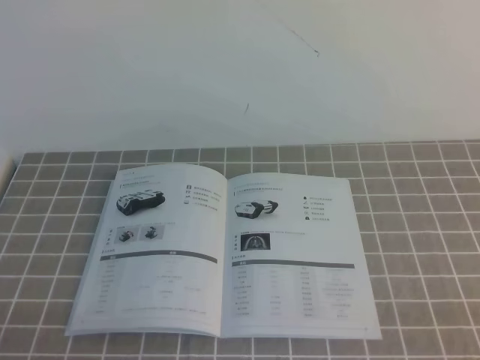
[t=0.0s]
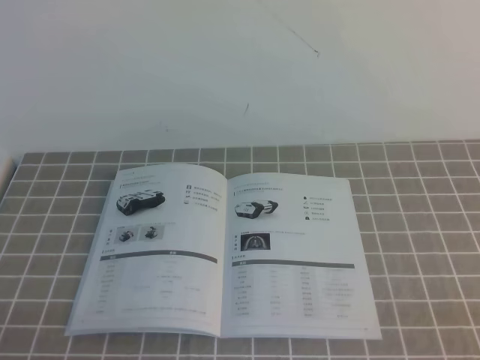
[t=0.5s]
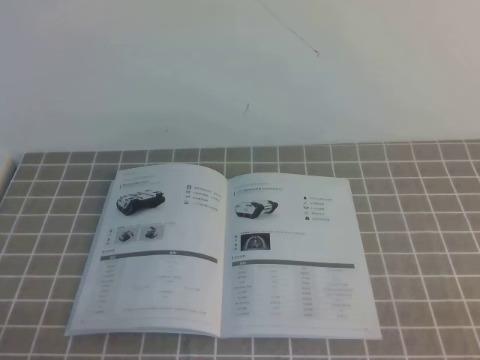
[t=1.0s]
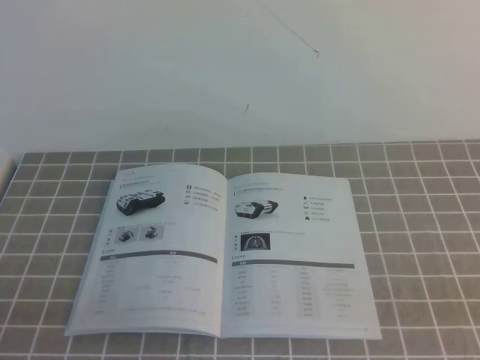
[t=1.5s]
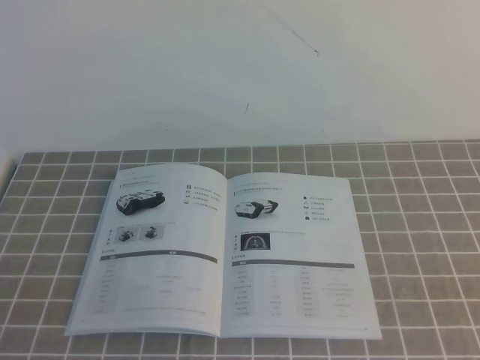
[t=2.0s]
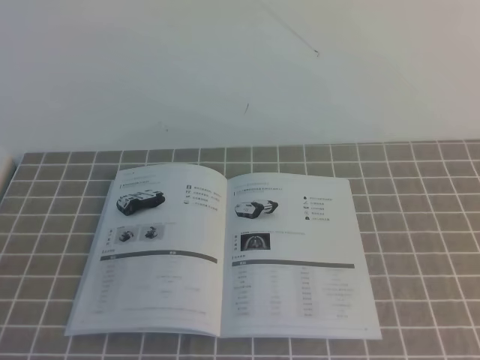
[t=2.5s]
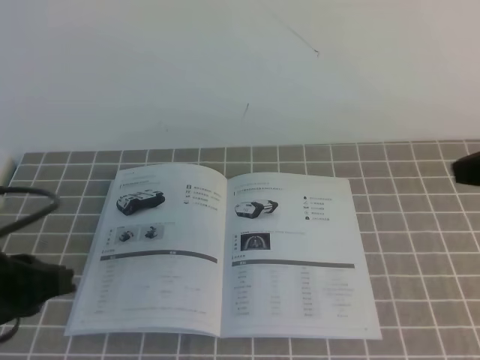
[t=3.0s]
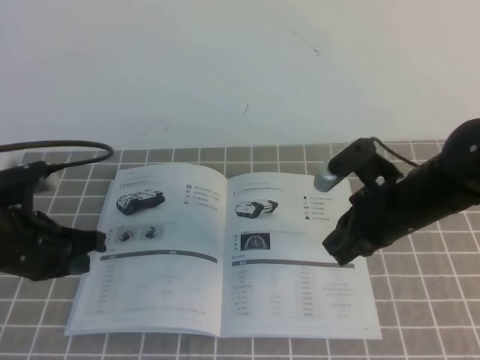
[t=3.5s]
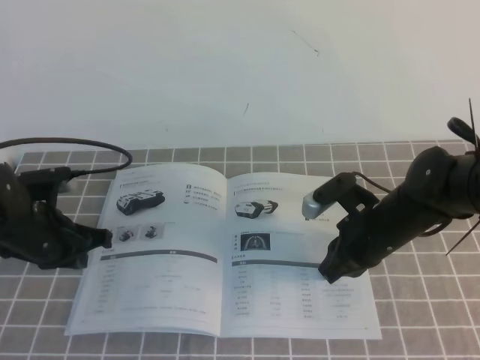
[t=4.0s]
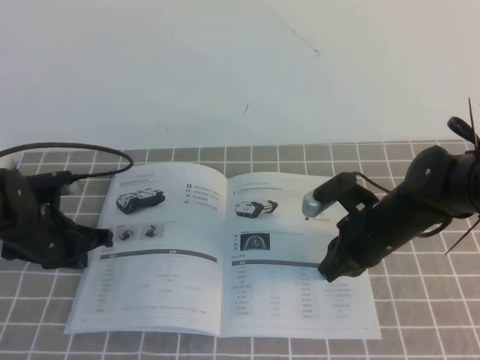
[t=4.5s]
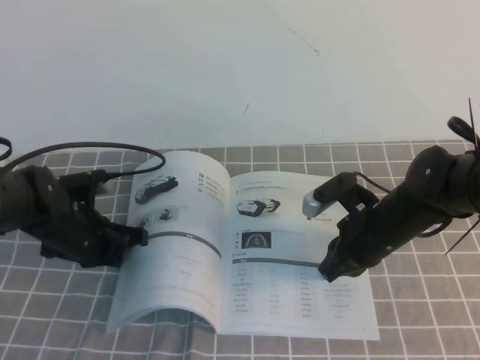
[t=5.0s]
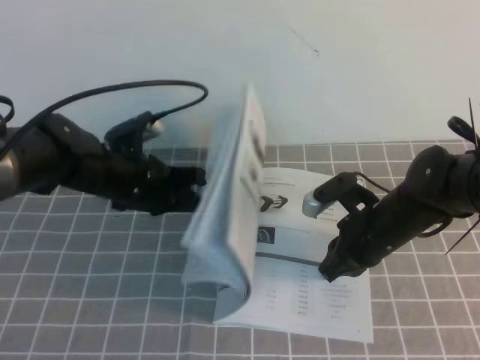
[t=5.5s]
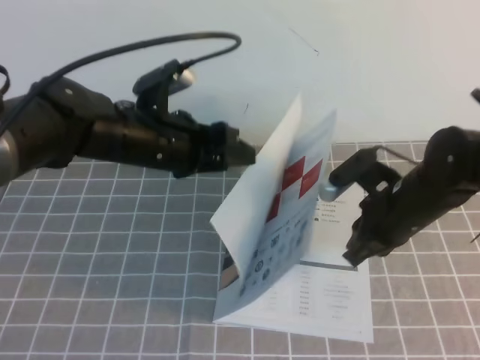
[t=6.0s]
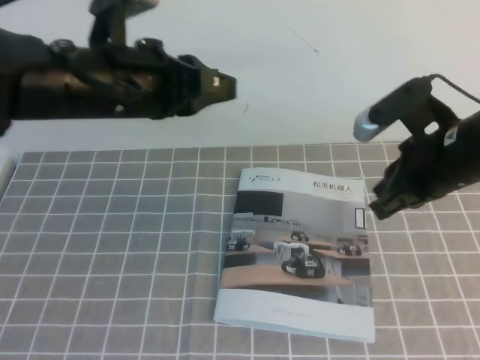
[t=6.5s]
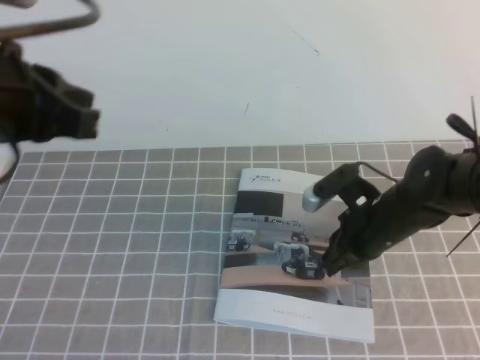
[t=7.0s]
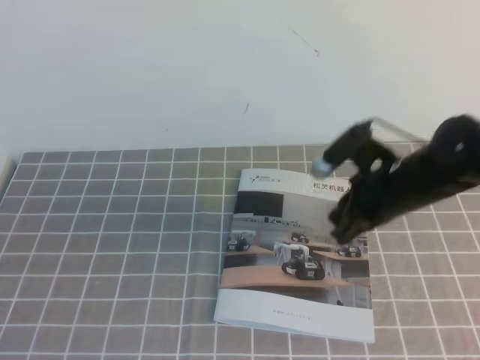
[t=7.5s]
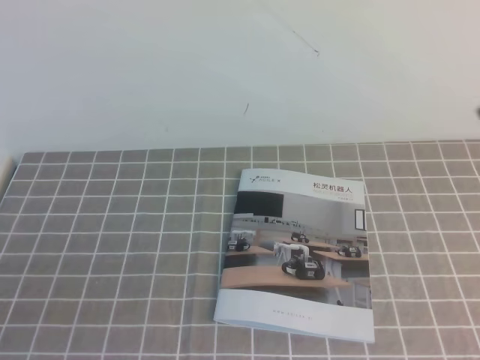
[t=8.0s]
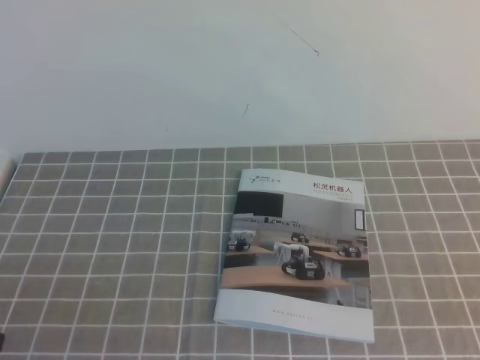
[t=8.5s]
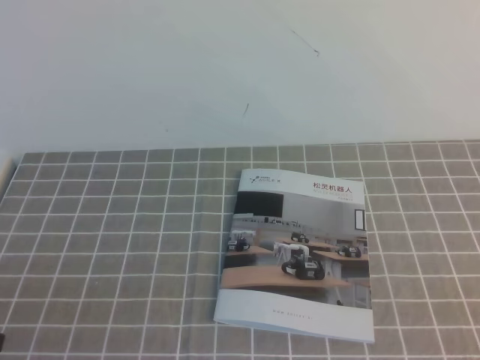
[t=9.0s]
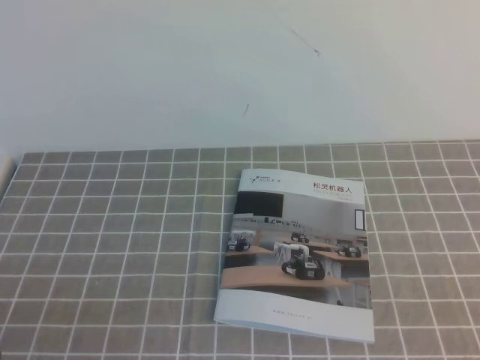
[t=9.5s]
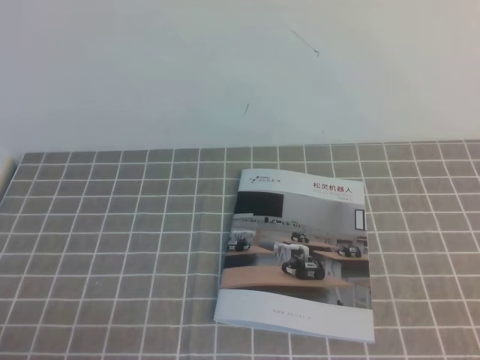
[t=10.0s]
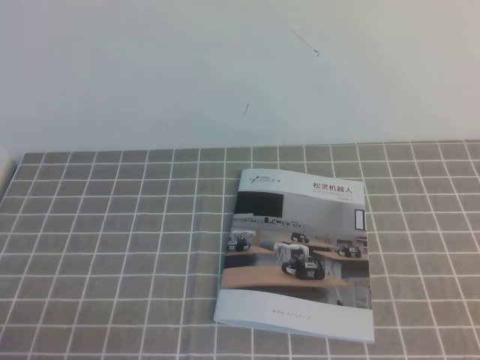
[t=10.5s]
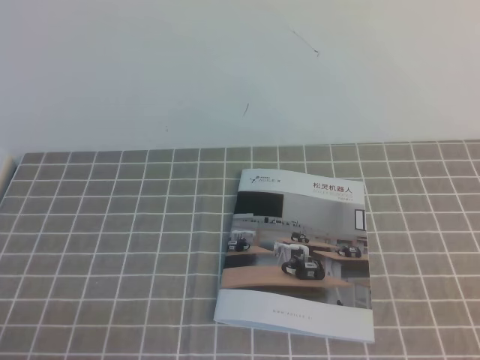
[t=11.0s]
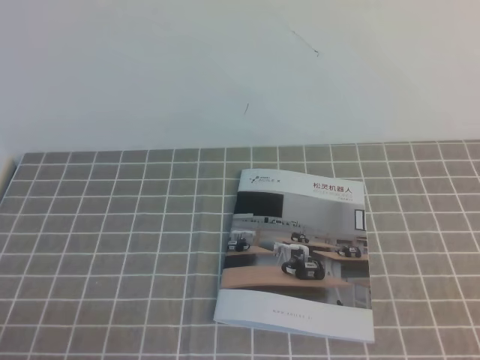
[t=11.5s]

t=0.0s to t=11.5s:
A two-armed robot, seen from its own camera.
Task of the whole recording: on the grey tablecloth, hold the book with one hand and close it with the other.
Step, t=0.0s to t=11.5s: Close the open book.
t=2.0s to t=4.0s: The left gripper moves forward, approximately 30 cm. The right gripper heads forward and to the left, covering some 35 cm.
t=4.0s to t=6.0s: The left gripper travels to the right and upward by some 15 cm, and opens its fingers.
t=6.0s to t=7.5s: The right gripper moves up and down over approximately 10 cm, changing direction 2 times; the left gripper is displaced backward, to the left and upward by some 30 cm, and closes its fingers.
t=7.5s to t=9.5s: The left gripper is displaced downward by approximately 15 cm. The right gripper moves backward and to the right, some 35 cm.
